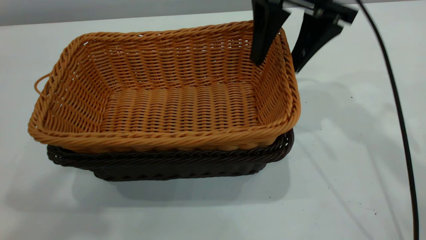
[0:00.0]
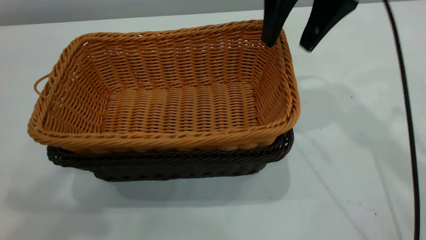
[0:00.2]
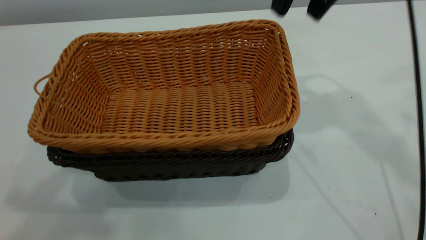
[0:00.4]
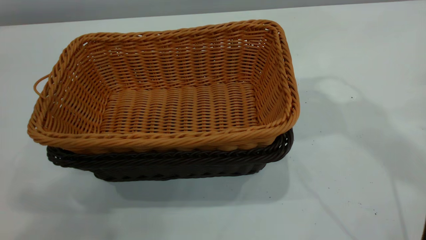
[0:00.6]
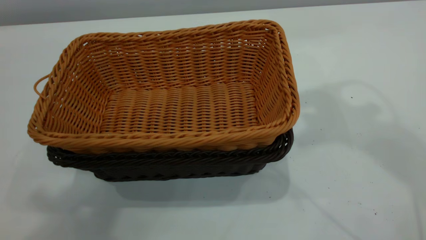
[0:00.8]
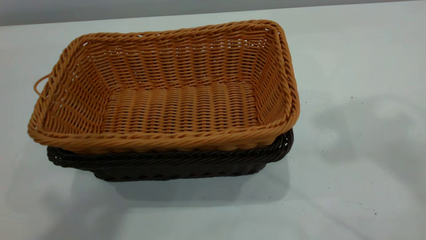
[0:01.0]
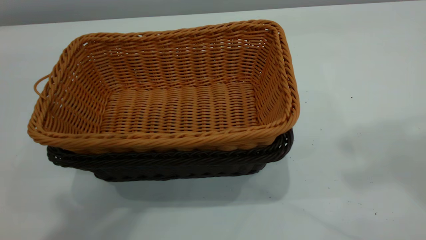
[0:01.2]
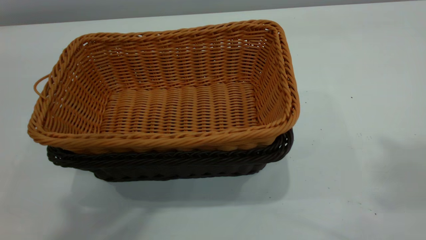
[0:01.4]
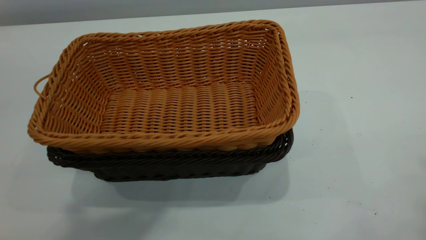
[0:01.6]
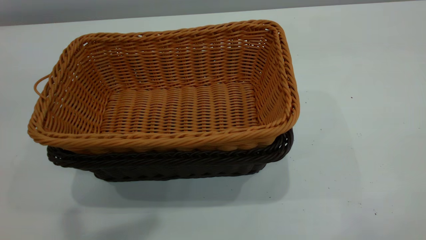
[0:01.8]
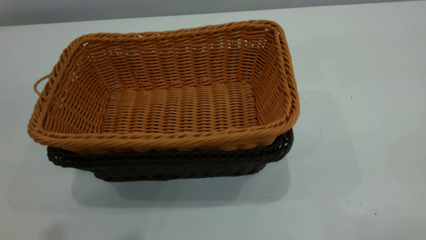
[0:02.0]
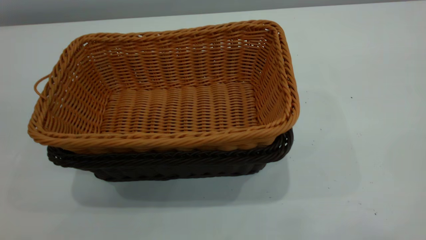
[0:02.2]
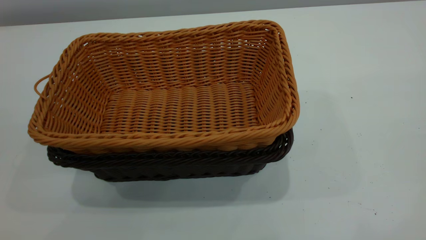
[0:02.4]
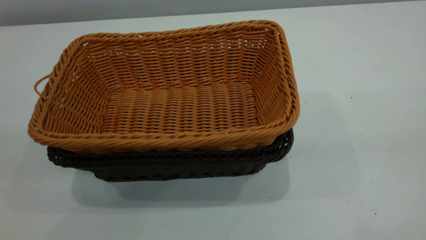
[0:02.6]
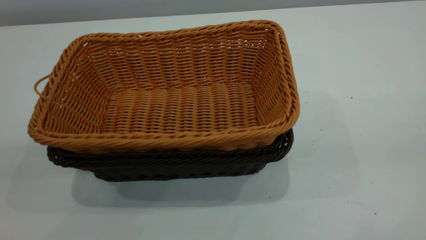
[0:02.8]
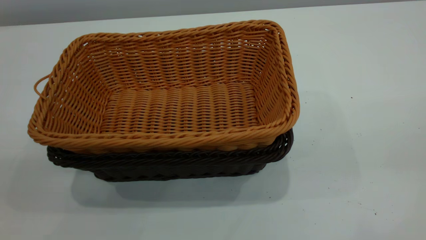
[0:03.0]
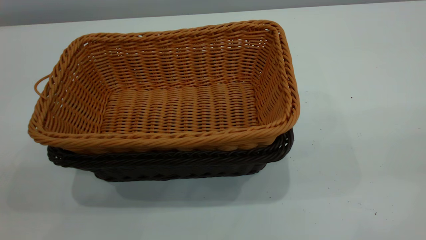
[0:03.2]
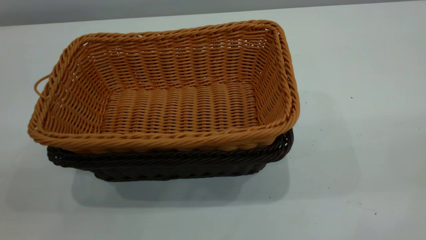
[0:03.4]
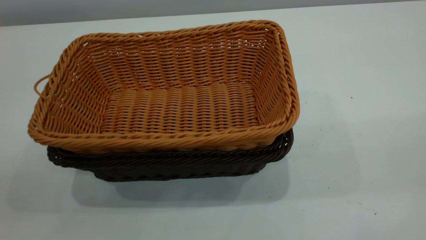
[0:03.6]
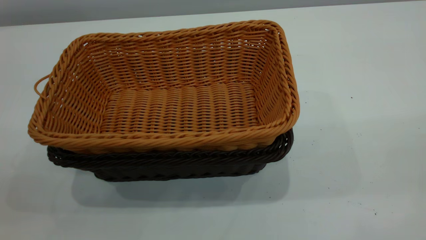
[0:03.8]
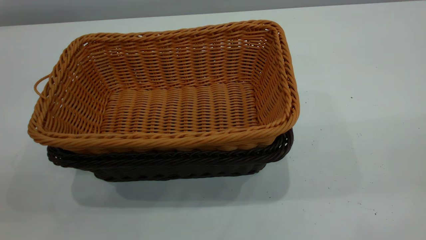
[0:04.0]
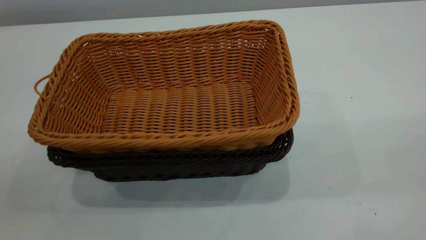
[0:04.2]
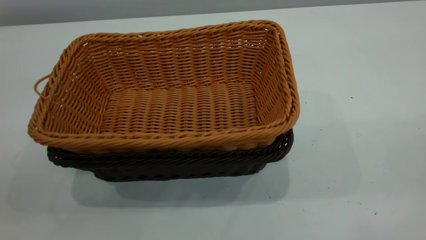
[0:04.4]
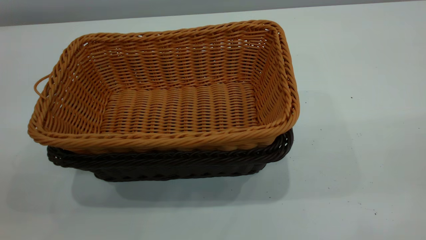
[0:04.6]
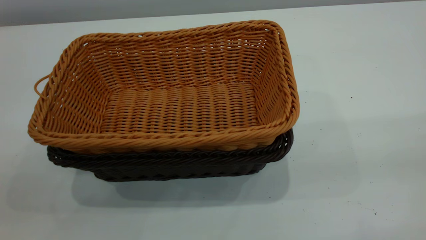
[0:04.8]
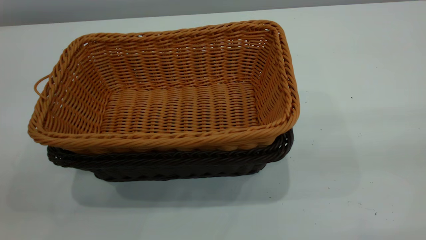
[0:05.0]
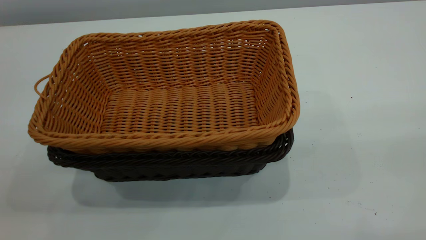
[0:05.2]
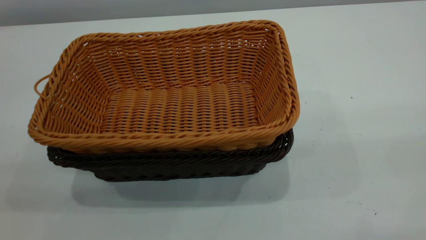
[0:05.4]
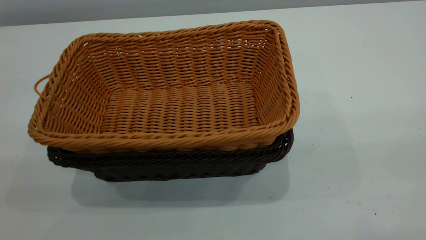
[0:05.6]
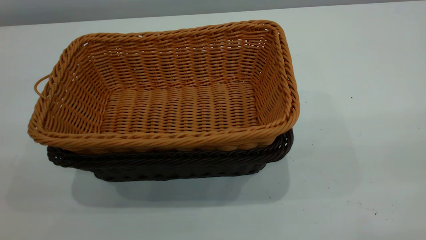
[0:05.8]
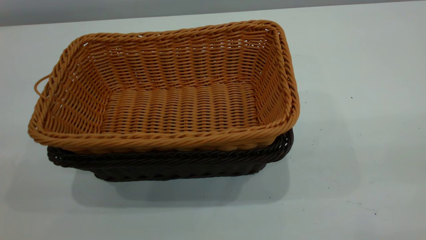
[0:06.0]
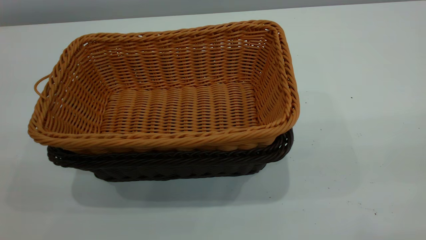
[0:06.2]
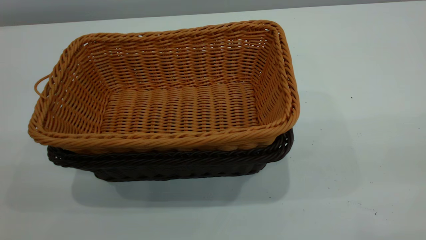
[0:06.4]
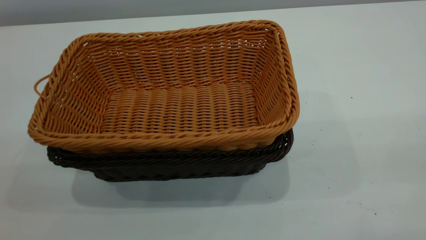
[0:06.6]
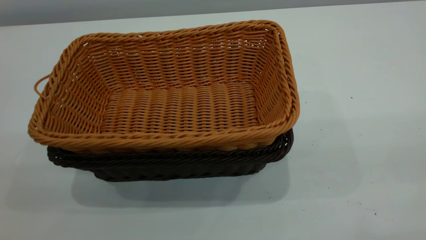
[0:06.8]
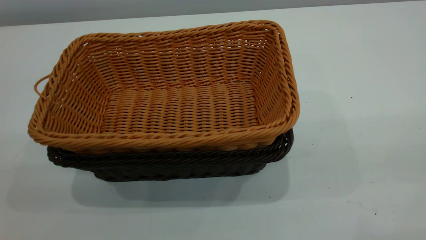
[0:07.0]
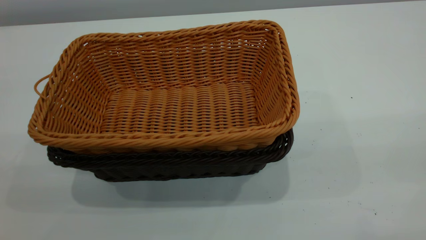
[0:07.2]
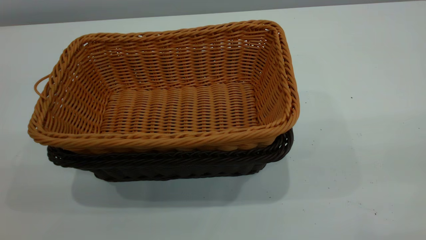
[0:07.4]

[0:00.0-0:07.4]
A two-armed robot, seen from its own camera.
Task of the whole recording: the left gripper grasp the black basket and place it in the center of the table, the right gripper grasp the brown basket and place it inside the black one.
0:00.0 to 0:01.4: The right gripper moves upward and backward, approximately 35 cm, and closes, while the left gripper closes.
0:01.4 to 0:03.0: The left gripper heads downward, backward and to the left, covering some 15 cm.
